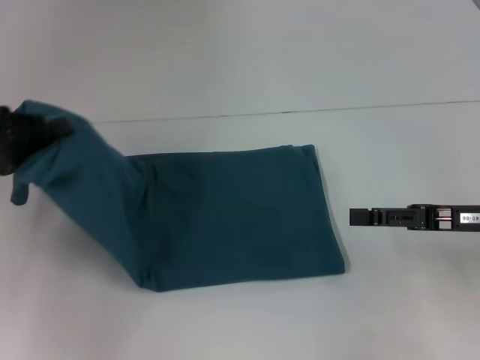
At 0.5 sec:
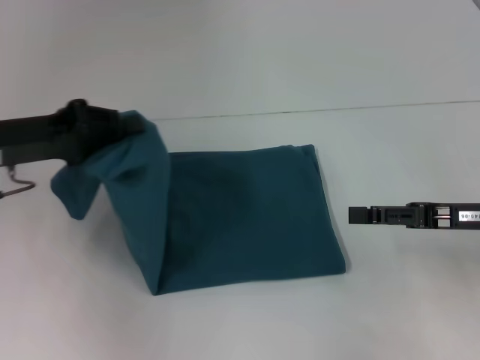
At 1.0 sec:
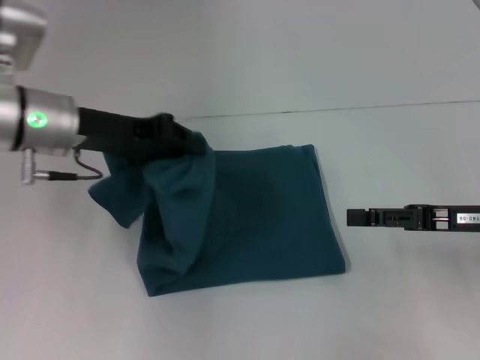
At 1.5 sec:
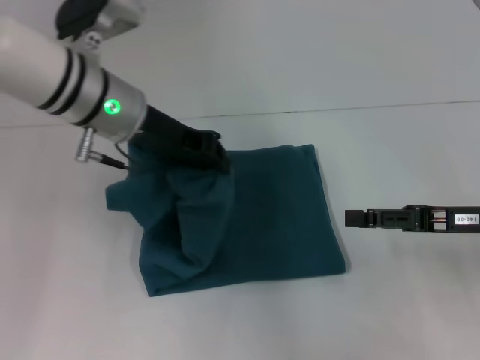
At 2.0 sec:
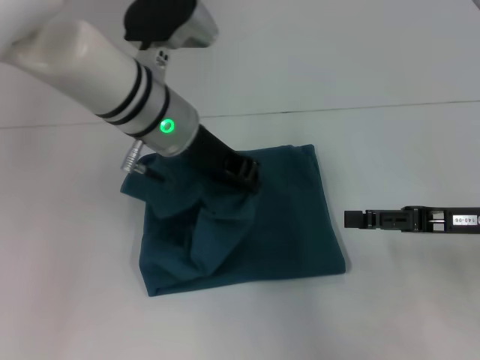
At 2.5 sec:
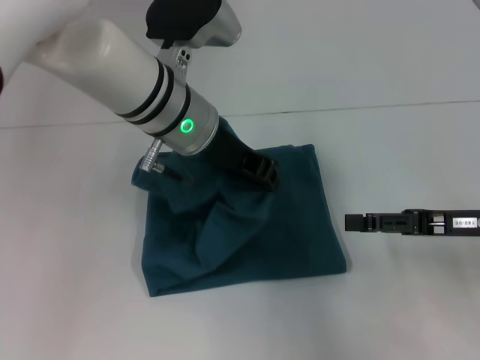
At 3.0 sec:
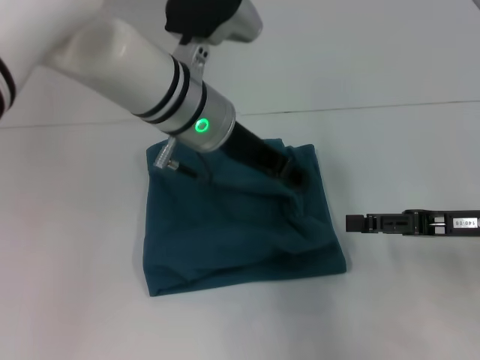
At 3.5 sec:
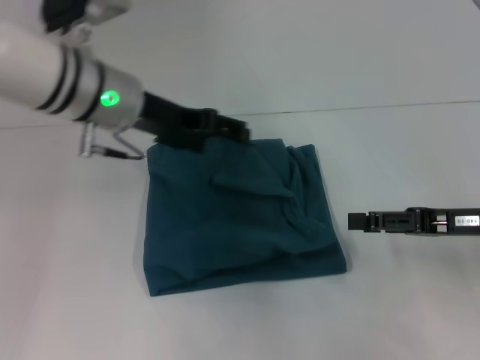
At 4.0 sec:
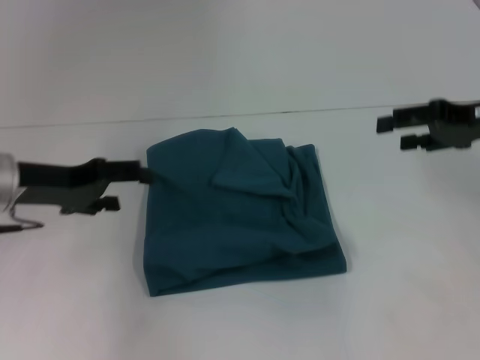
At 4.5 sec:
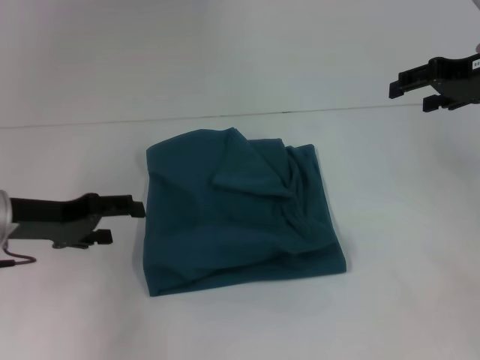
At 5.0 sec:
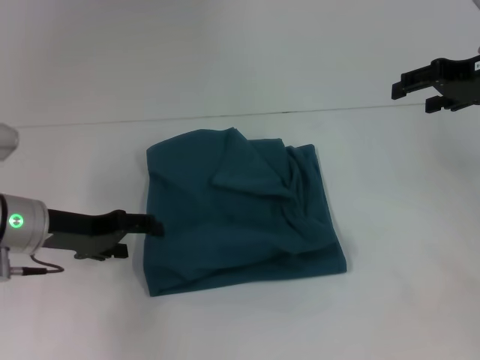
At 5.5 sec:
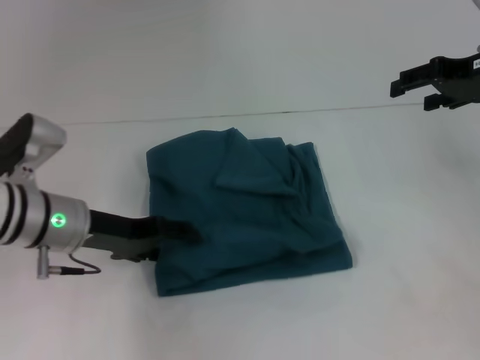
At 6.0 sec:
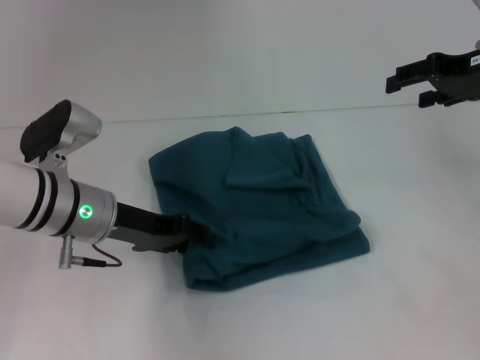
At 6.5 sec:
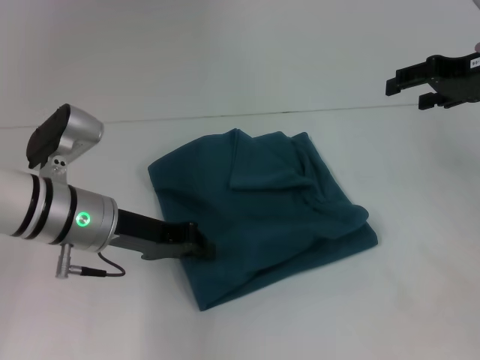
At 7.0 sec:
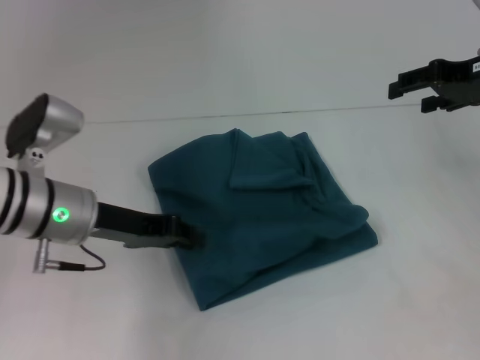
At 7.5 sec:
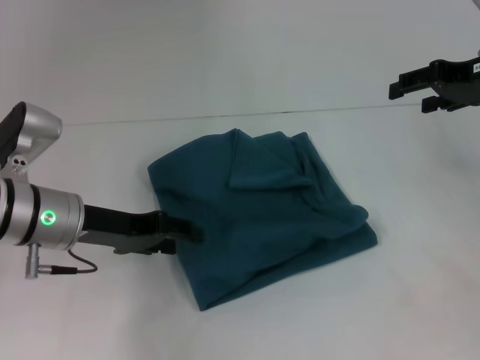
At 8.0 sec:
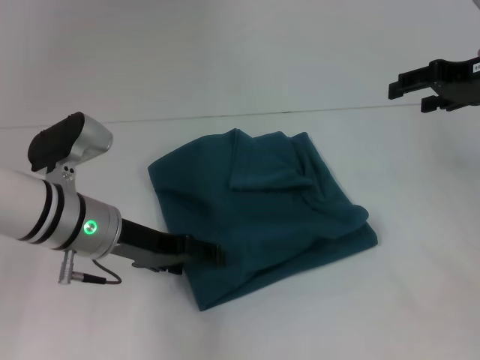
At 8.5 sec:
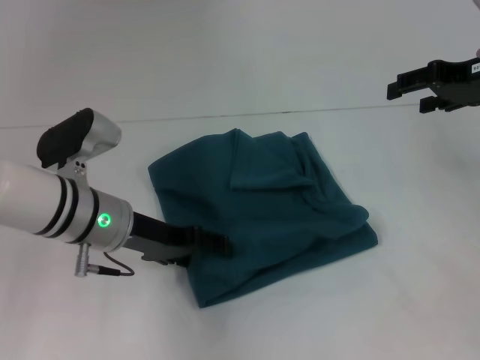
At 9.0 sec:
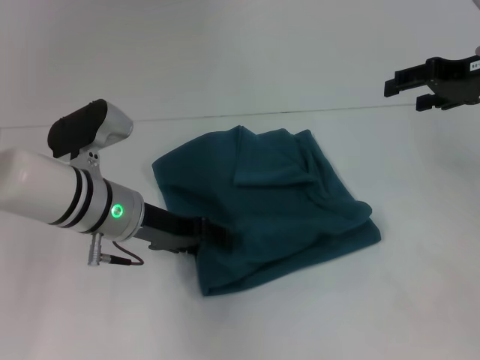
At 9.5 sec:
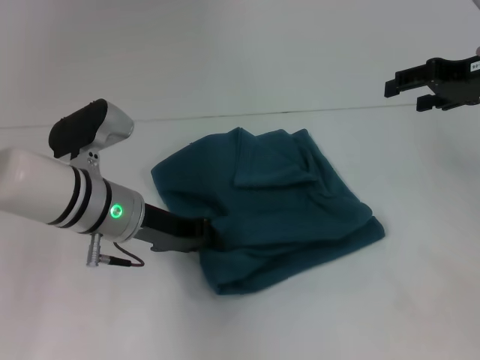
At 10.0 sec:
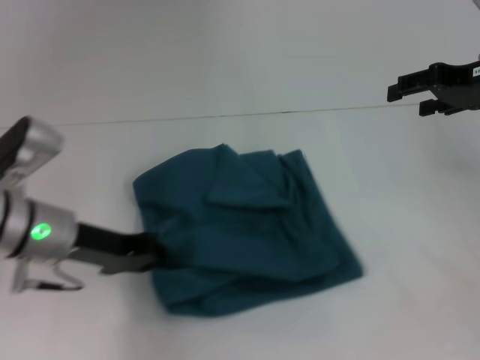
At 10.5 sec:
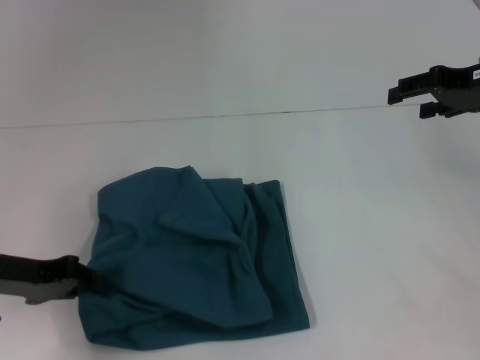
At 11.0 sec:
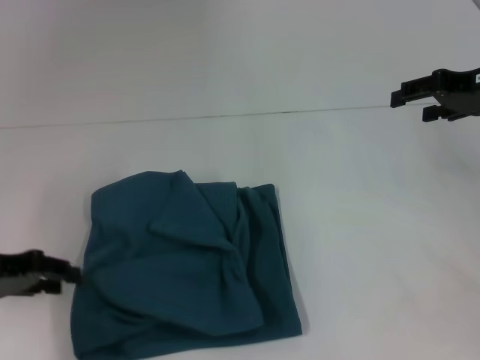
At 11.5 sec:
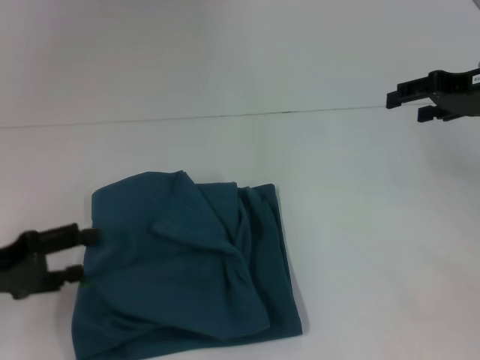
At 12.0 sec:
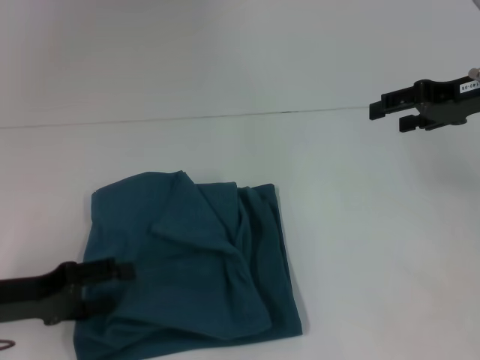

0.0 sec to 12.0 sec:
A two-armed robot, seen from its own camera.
Step, 0.0 sec to 3.0 sec: Fold the clothes to the left.
0.0 sec to 2.0 sec: The left gripper moves to the right, about 25 cm.
2.0 sec to 4.0 sec: The right gripper goes about 10 cm forward and upward; the left gripper shifts approximately 20 cm to the left, and opens its fingers.
4.0 sec to 6.0 sec: The right gripper ends up approximately 5 cm from where it was, while the left gripper travels to the right by approximately 10 cm.
6.0 sec to 8.0 sec: The left gripper closes, then opens again.
8.0 sec to 10.0 sec: The left gripper closes its fingers.
10.0 sec to 12.0 sec: The left gripper moves to the left and backward, roughly 10 cm, and opens.

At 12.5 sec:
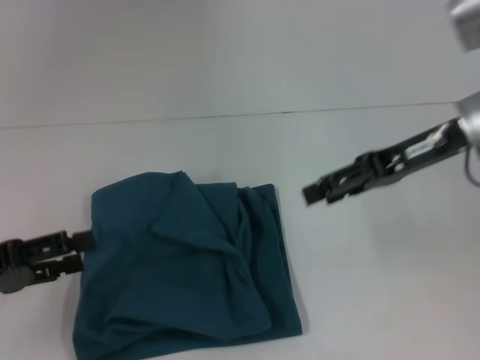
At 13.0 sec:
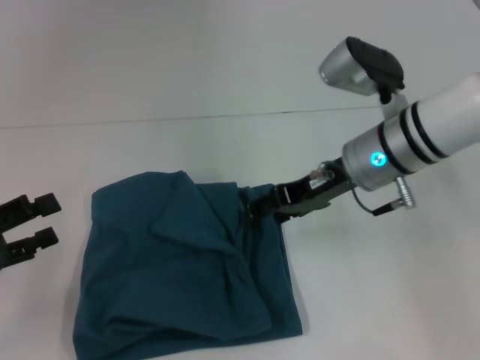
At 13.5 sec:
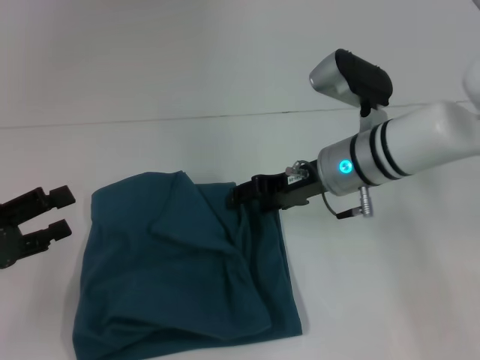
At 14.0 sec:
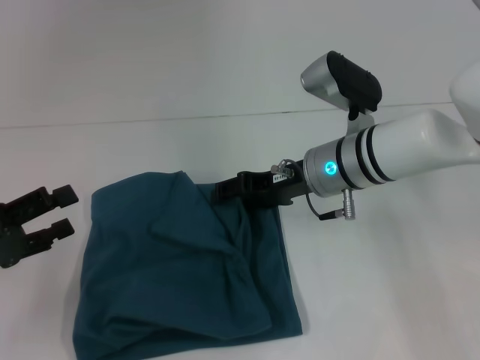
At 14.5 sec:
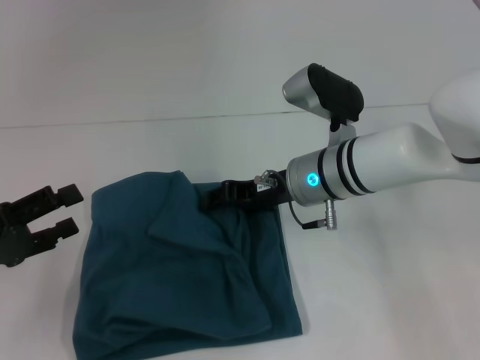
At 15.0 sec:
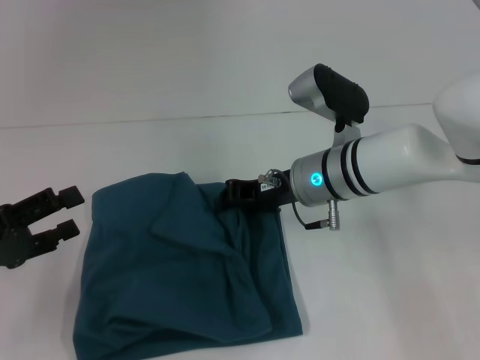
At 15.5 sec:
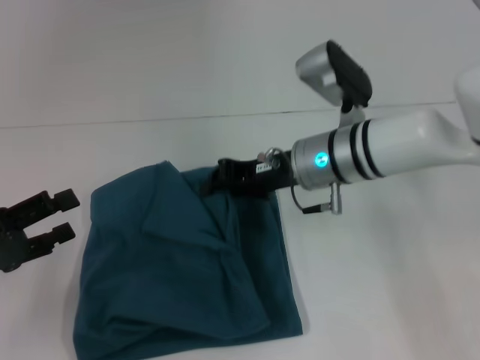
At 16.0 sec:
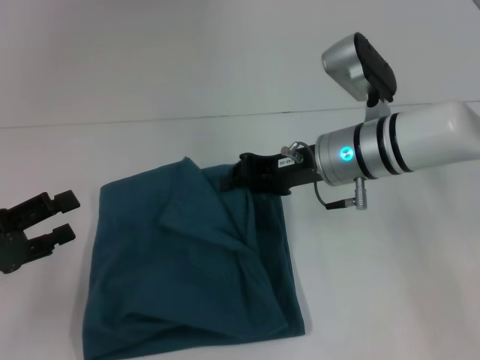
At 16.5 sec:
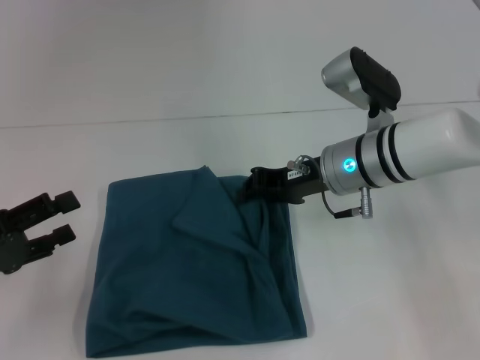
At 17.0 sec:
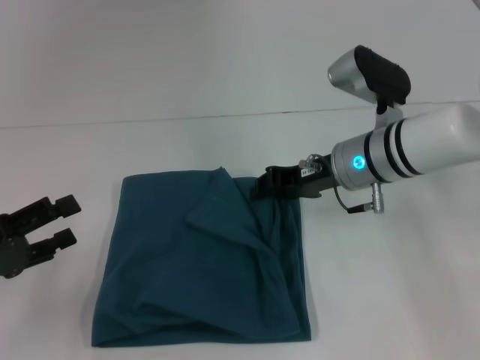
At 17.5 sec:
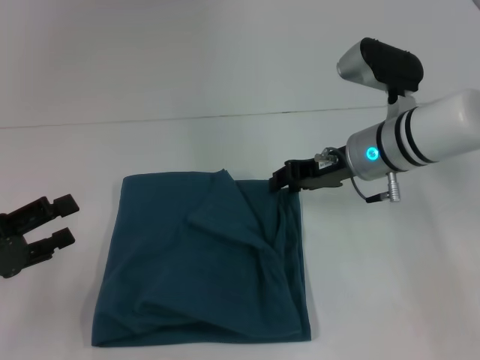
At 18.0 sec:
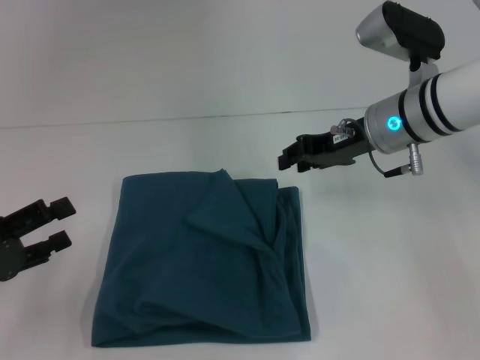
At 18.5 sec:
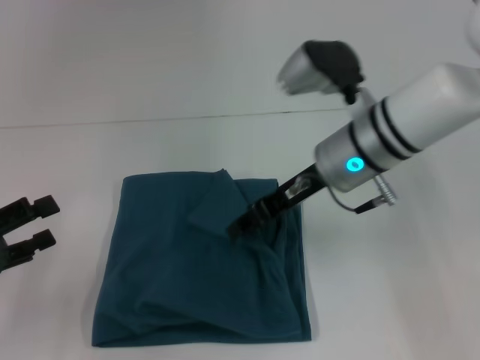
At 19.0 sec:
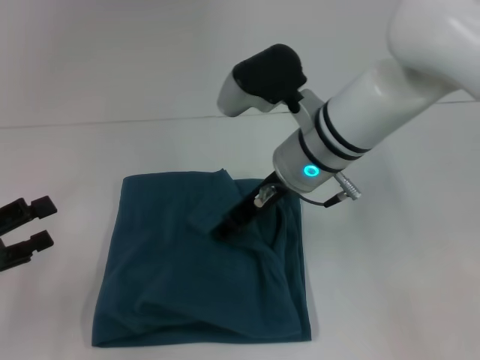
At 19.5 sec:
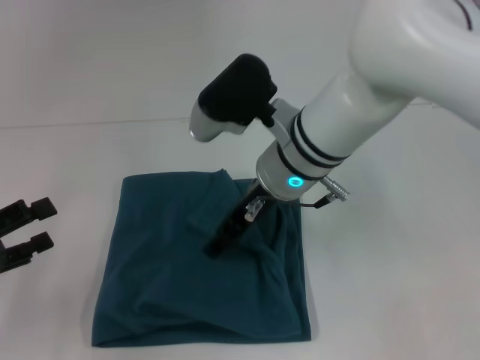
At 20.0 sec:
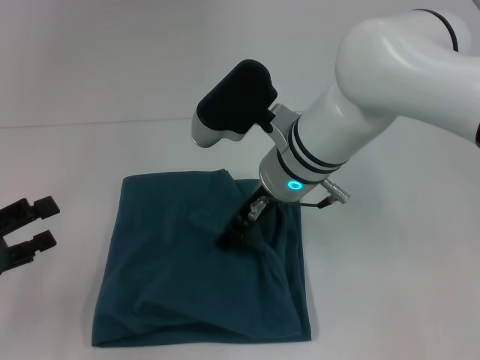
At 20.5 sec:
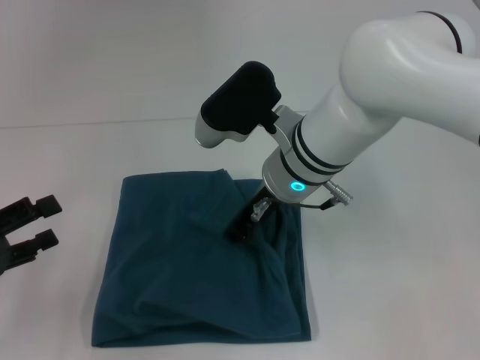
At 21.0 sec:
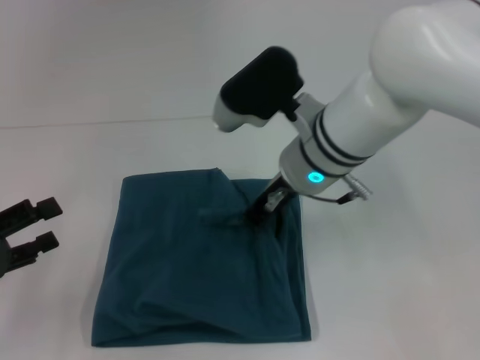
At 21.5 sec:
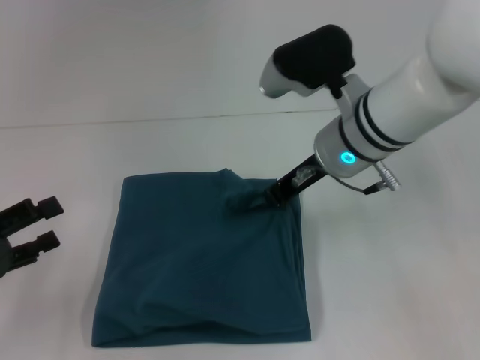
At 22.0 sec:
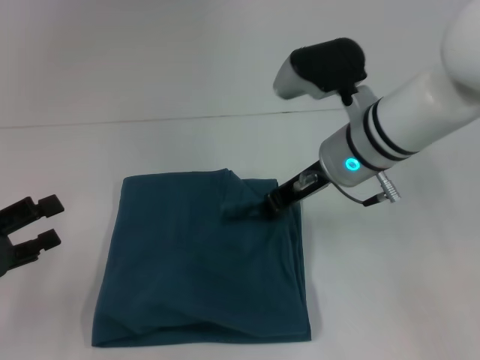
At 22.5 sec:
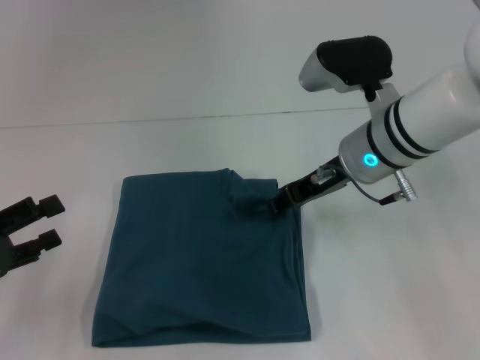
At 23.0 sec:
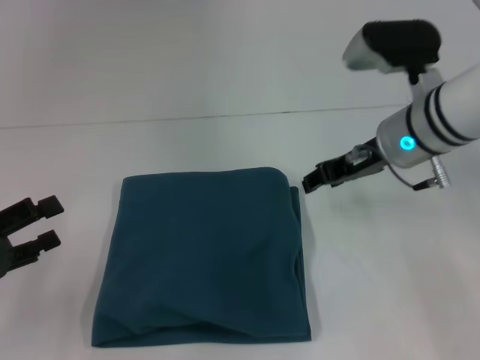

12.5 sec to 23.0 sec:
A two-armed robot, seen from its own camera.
12.5 sec to 14.5 sec: The right gripper is displaced to the left and downward by roughly 15 cm.
14.5 sec to 16.5 sec: The right gripper closes up.
16.5 sec to 19.0 sec: The right gripper heads to the left, covering some 5 cm, and opens.
19.0 sec to 21.0 sec: The right gripper closes its fingers.
21.0 sec to 23.0 sec: The right gripper moves to the right, roughly 10 cm, and opens.

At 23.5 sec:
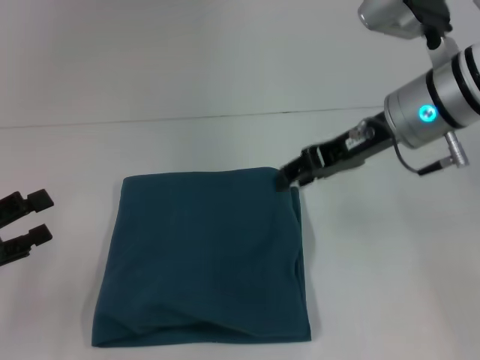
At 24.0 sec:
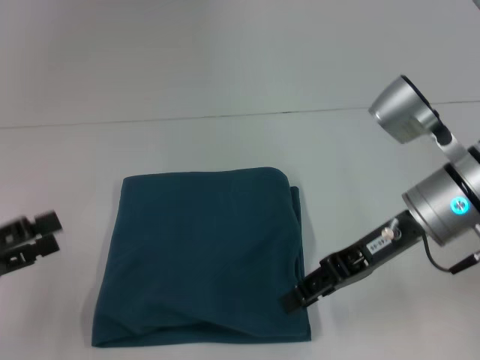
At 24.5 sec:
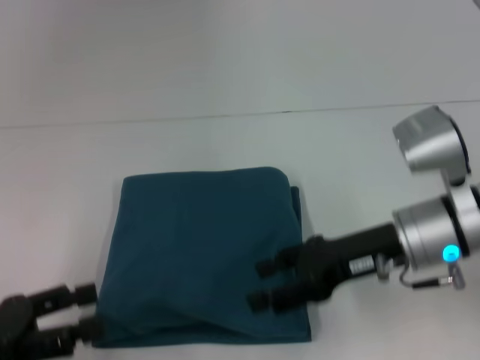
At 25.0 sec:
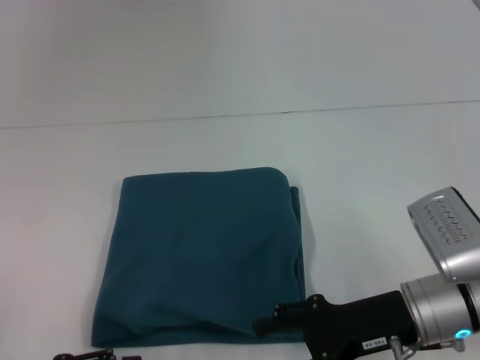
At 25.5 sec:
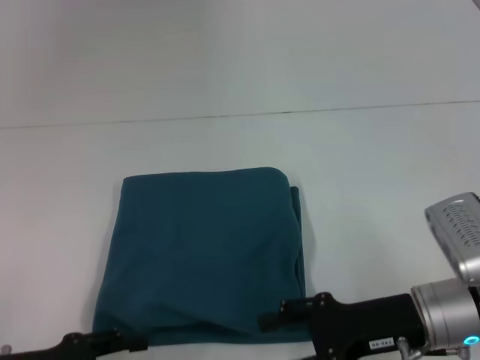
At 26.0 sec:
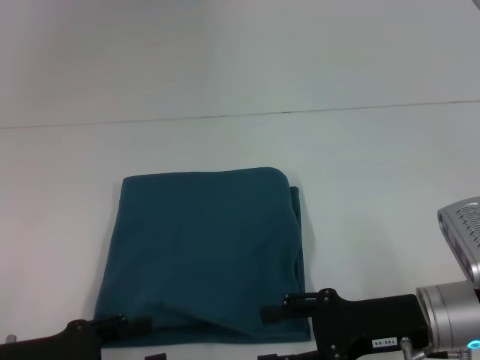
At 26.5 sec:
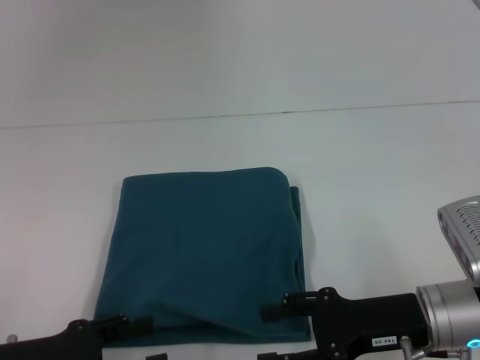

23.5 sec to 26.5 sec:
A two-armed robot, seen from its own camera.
23.5 sec to 25.0 sec: The right gripper shifts approximately 20 cm downward and backward; the left gripper shifts roughly 10 cm to the right and backward.
25.0 sec to 26.5 sec: The grippers move only a little.
